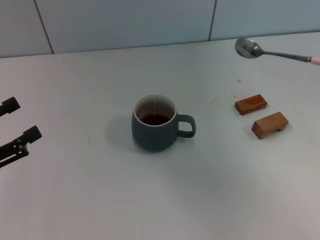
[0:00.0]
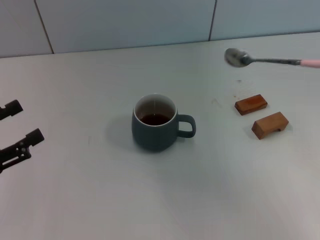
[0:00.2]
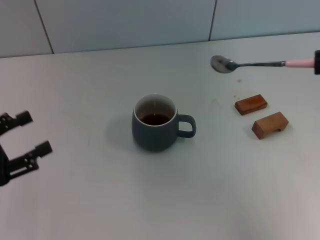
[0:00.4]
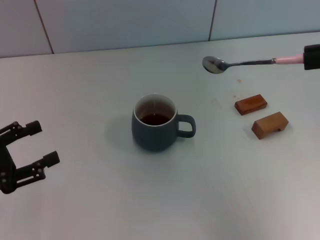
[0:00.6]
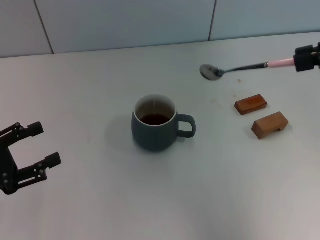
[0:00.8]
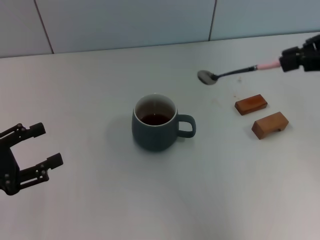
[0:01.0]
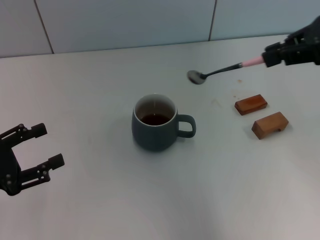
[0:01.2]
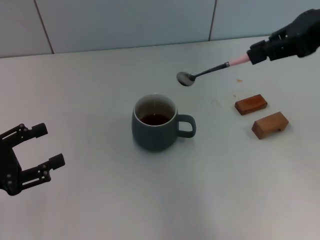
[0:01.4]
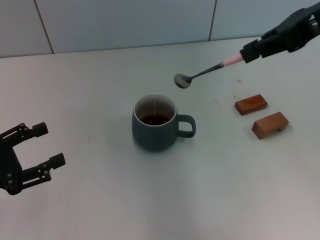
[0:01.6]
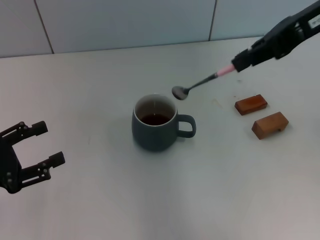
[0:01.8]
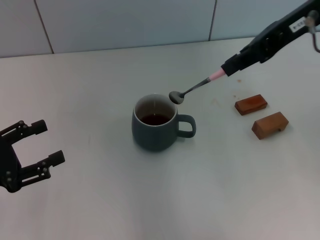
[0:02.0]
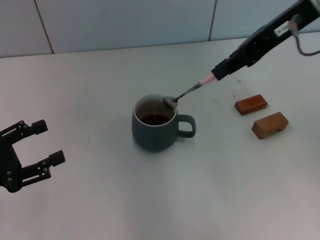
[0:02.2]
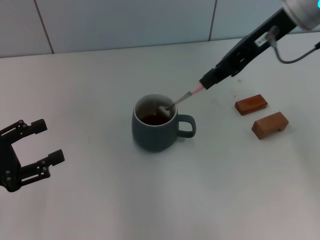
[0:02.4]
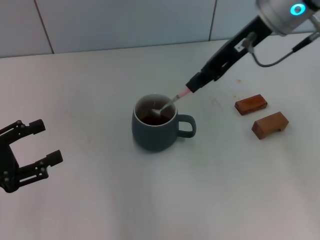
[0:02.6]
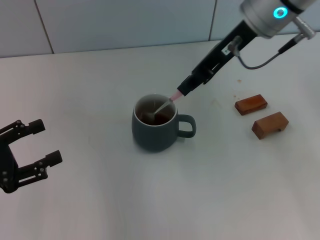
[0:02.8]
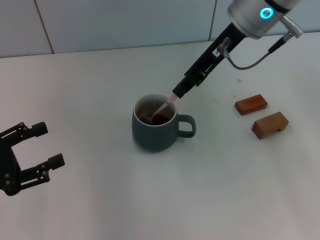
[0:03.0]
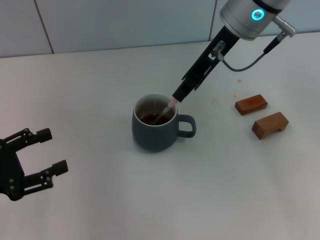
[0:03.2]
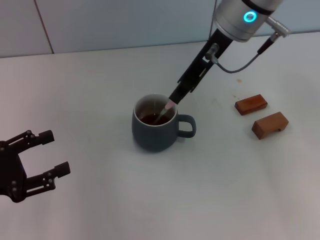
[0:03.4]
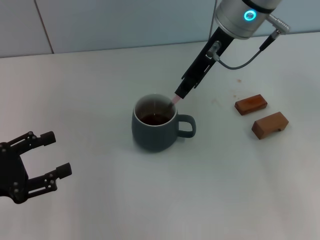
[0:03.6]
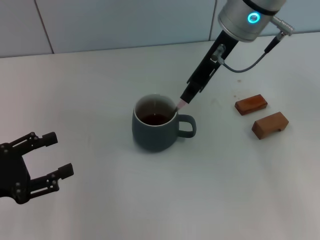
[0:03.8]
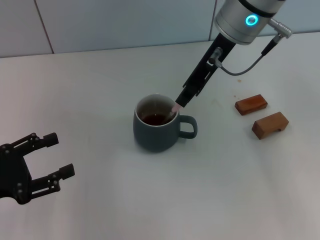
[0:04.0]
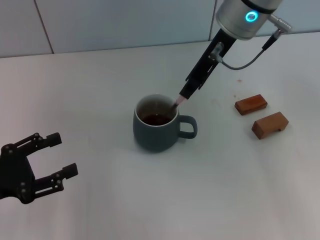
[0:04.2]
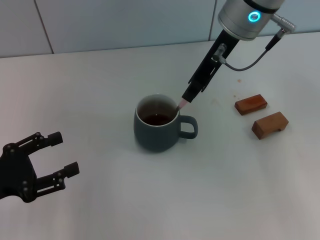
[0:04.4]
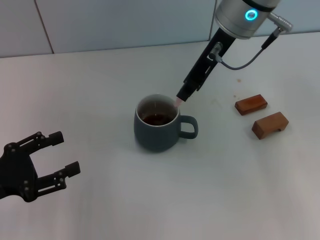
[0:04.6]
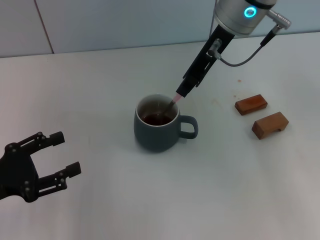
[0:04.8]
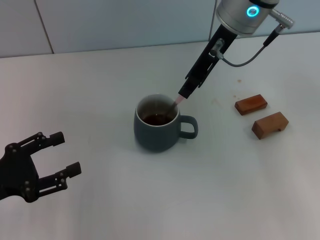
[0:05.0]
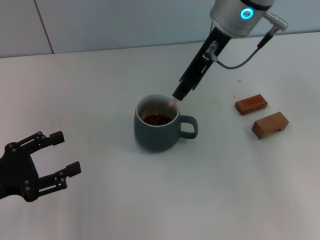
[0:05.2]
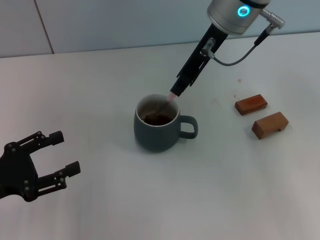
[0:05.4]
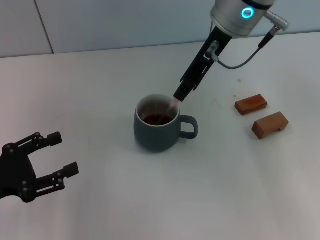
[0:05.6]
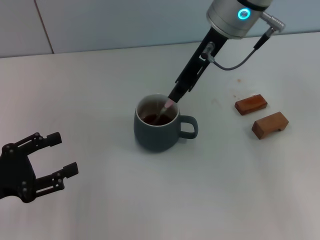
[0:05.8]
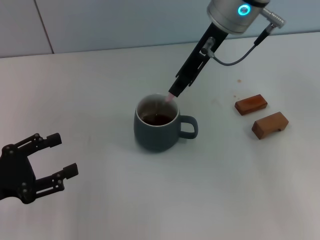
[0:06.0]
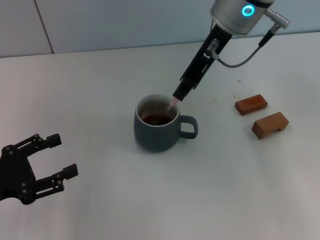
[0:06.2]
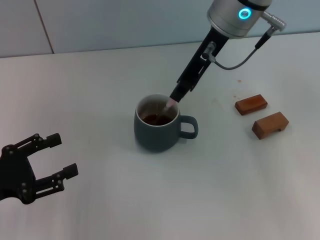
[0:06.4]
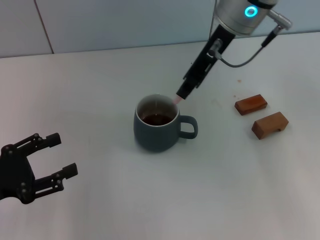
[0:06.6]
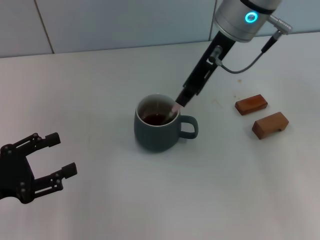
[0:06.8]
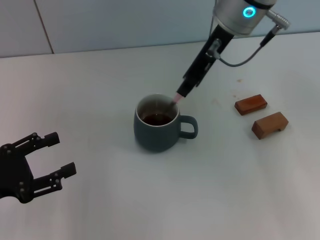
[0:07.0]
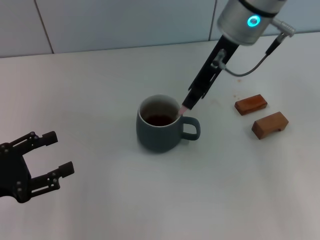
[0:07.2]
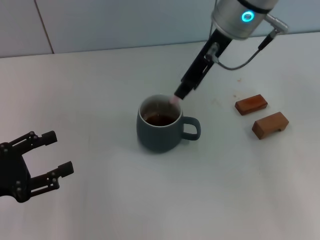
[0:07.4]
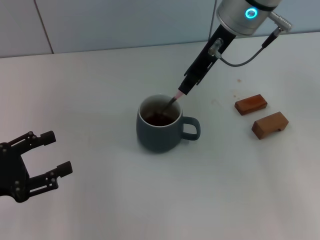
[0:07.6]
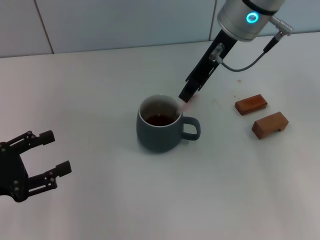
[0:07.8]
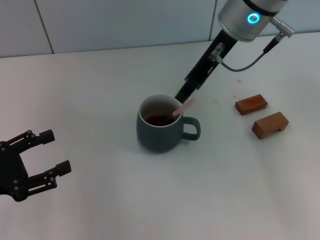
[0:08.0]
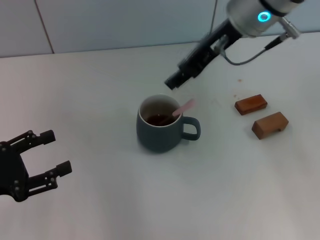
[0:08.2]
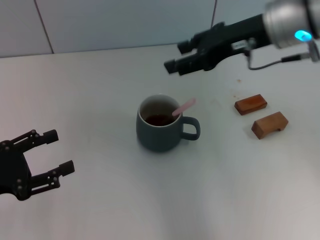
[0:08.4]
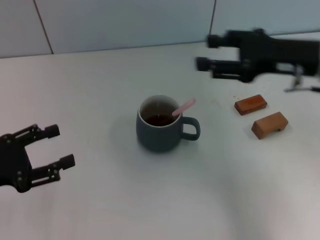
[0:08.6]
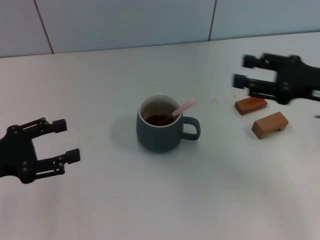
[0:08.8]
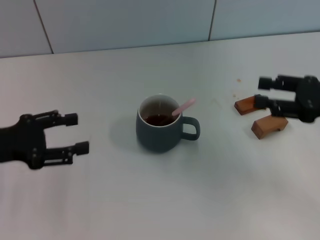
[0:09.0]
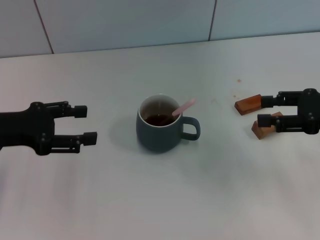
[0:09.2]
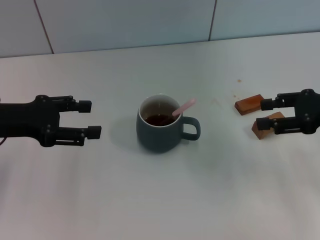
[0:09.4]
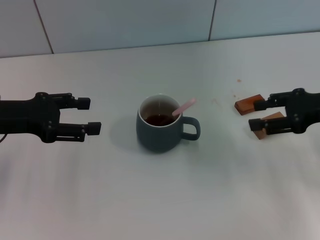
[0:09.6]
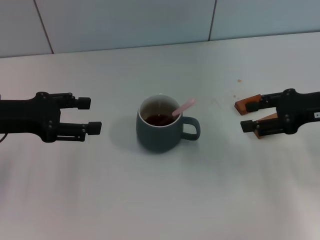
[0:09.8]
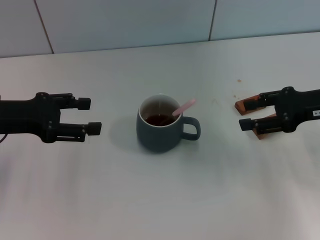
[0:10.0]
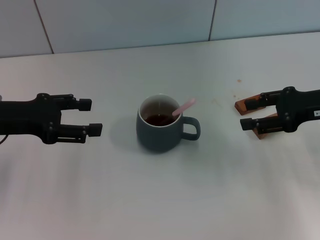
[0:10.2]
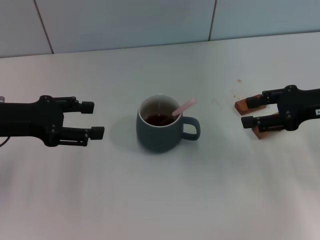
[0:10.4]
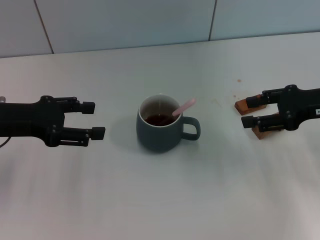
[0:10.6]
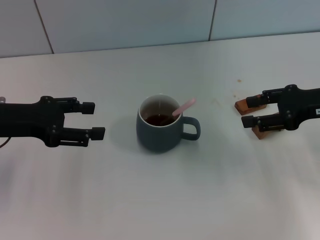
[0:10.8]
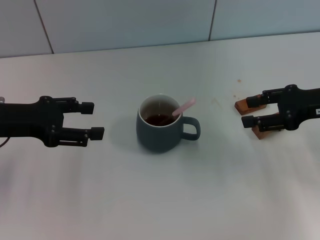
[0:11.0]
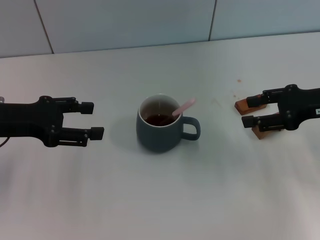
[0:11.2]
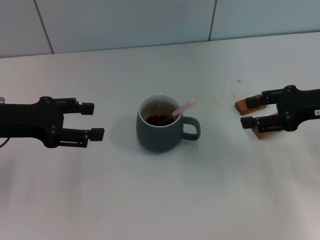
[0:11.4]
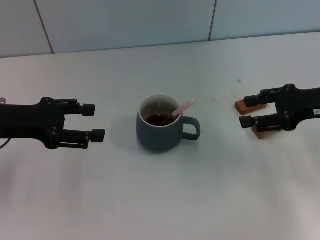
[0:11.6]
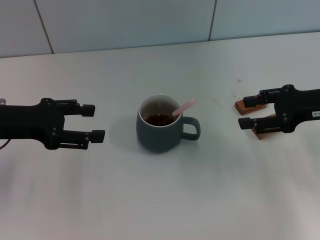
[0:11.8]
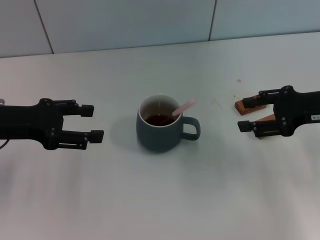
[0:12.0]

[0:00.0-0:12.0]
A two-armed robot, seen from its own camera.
Task of the whole recording: Move the grey cup to the center, lift the pink spoon, stir it three times in the cup, and put the spoon into the cup.
Step, 0:00.0 to 0:08.2: Stir the coffee in the cup with the right gripper.
0:00.0 to 0:01.6: The right gripper goes about 20 cm to the left, forward and upward.
0:01.6 to 0:03.0: The right gripper heads to the left, forward and downward, covering roughly 15 cm.
0:03.0 to 0:07.6: The grippers move only a little.
0:07.6 to 0:09.0: The right gripper shifts approximately 30 cm to the right, backward and downward, and opens up, while the left gripper goes about 5 cm forward.
0:09.0 to 0:10.4: The left gripper moves about 5 cm.
0:10.4 to 0:12.0: The grippers make only small movements.

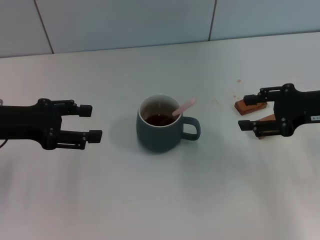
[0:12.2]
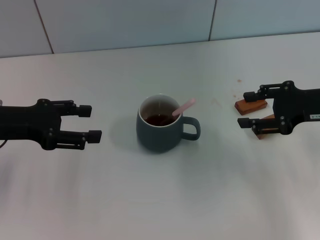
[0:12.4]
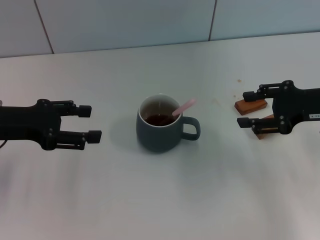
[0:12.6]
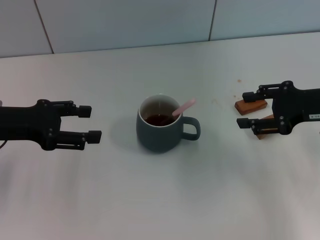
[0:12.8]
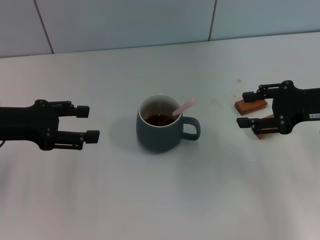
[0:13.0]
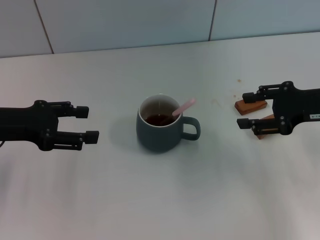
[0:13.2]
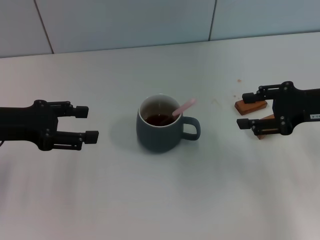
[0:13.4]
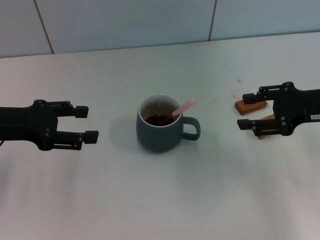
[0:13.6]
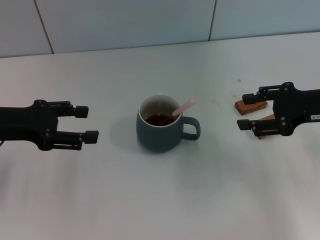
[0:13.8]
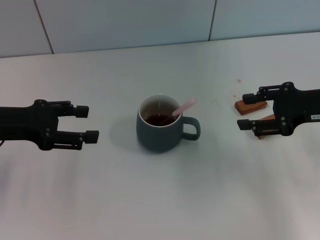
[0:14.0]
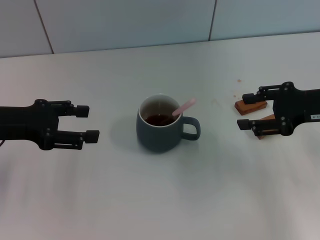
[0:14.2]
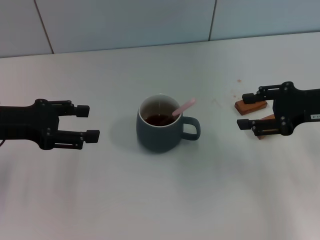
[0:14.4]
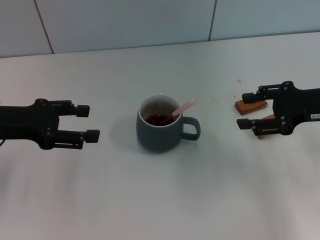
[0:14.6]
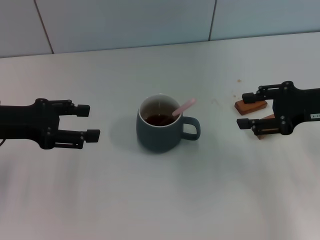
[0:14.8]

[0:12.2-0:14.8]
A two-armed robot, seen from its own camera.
Task of the whole recording: Move the grey cup to the center, lift the pink spoon, stir it three times in the cup, and put the spoon into the cup.
0:12.2 to 0:14.8: Neither gripper changes place.
